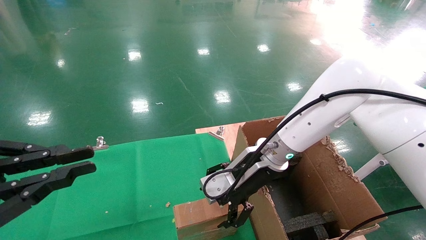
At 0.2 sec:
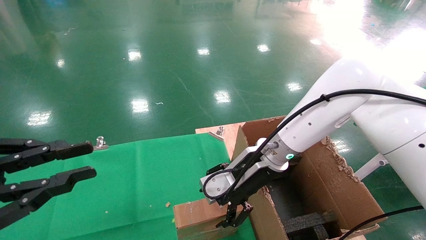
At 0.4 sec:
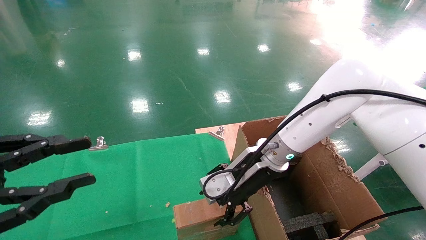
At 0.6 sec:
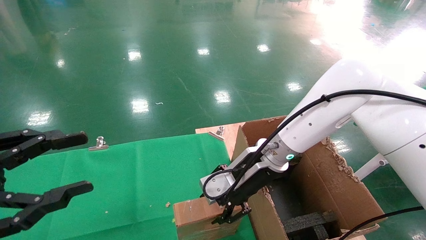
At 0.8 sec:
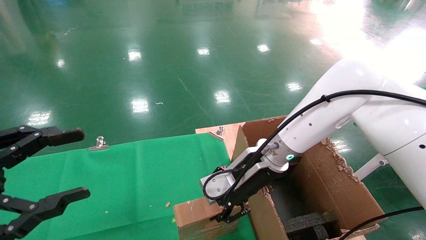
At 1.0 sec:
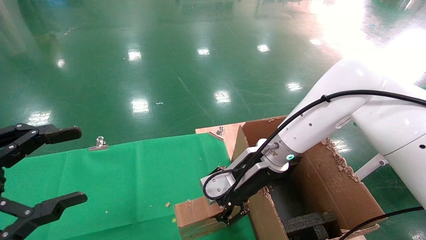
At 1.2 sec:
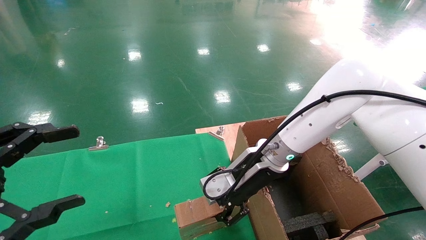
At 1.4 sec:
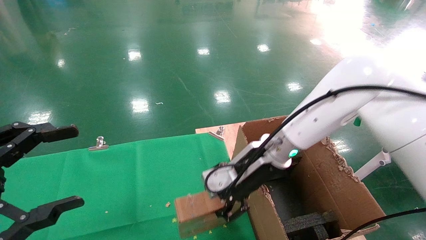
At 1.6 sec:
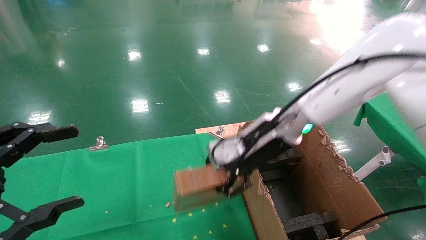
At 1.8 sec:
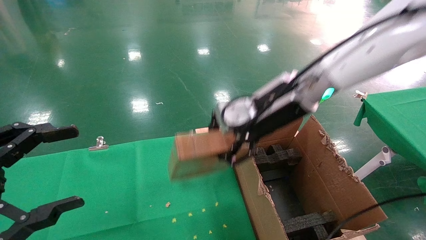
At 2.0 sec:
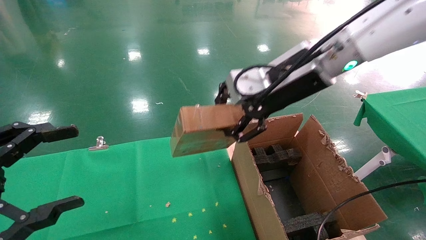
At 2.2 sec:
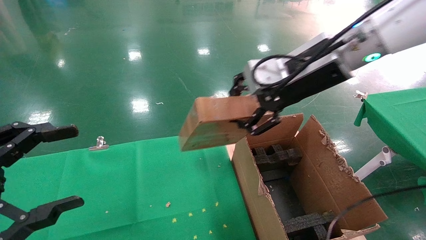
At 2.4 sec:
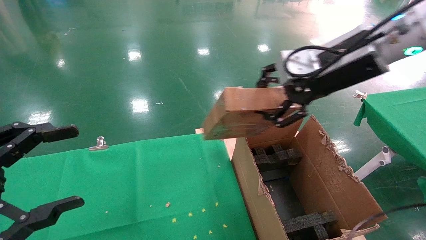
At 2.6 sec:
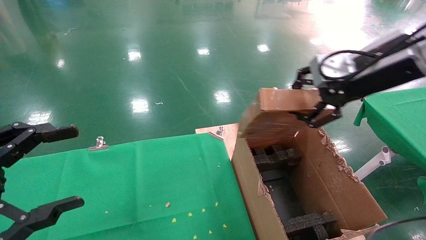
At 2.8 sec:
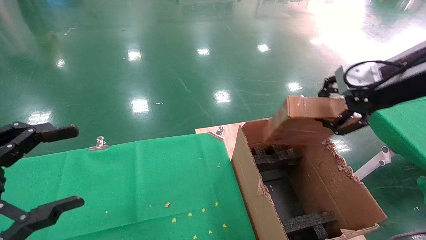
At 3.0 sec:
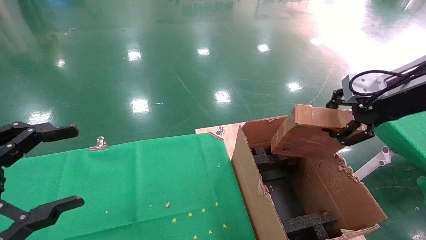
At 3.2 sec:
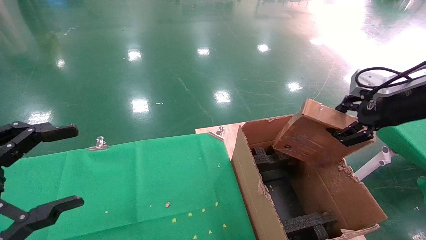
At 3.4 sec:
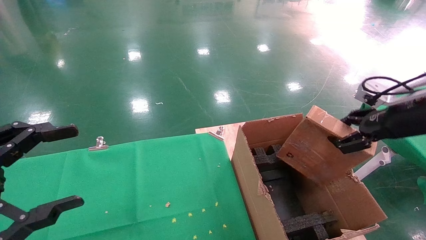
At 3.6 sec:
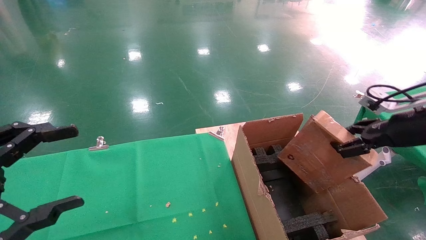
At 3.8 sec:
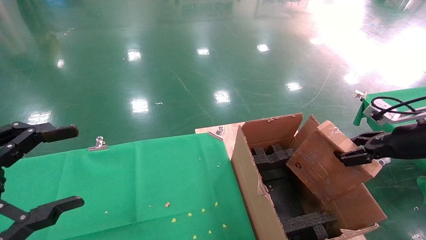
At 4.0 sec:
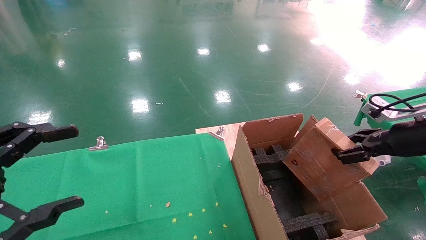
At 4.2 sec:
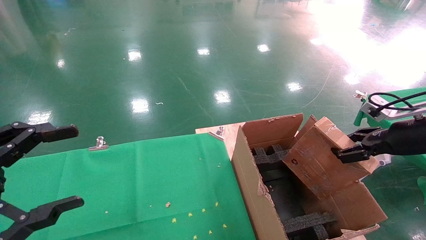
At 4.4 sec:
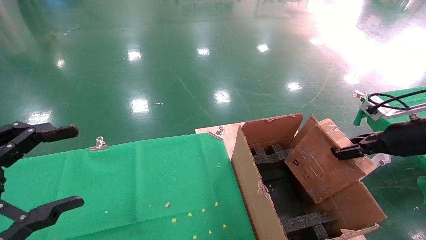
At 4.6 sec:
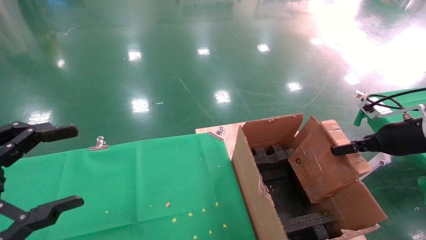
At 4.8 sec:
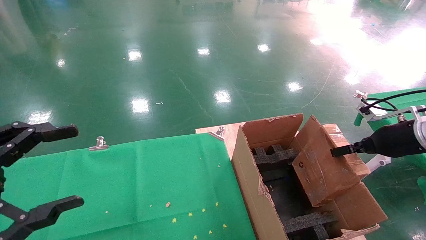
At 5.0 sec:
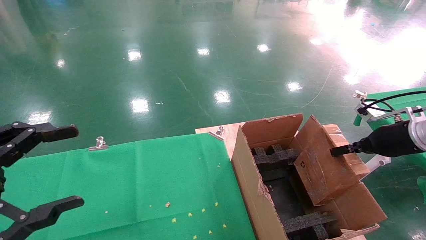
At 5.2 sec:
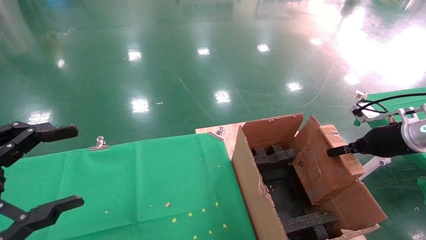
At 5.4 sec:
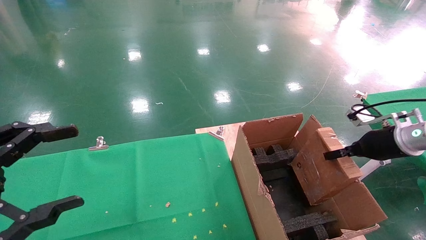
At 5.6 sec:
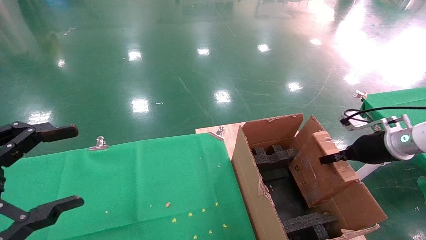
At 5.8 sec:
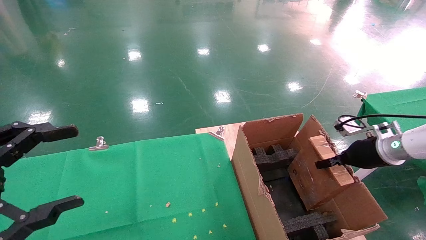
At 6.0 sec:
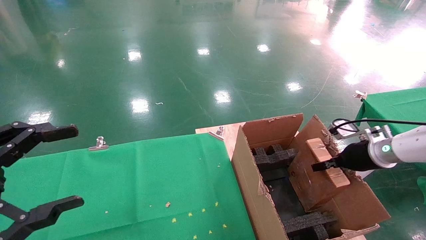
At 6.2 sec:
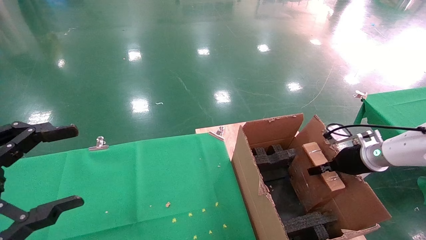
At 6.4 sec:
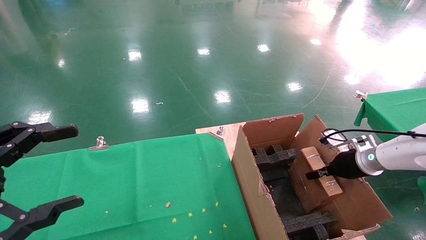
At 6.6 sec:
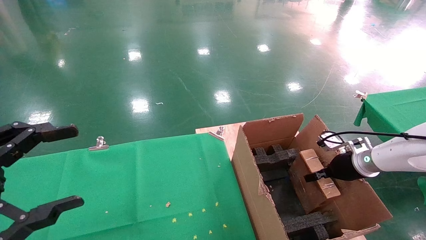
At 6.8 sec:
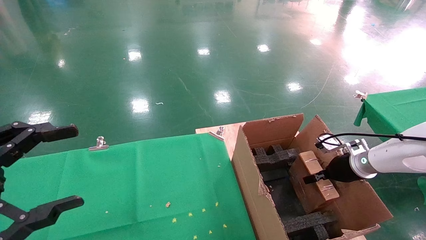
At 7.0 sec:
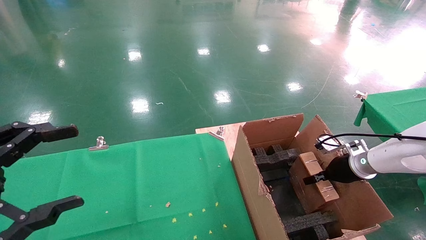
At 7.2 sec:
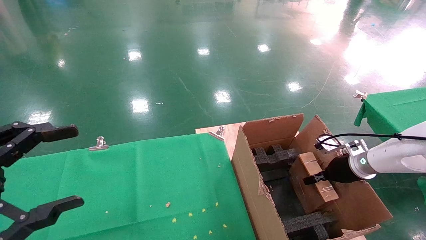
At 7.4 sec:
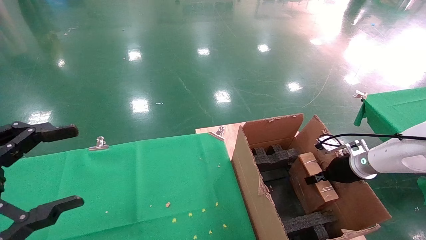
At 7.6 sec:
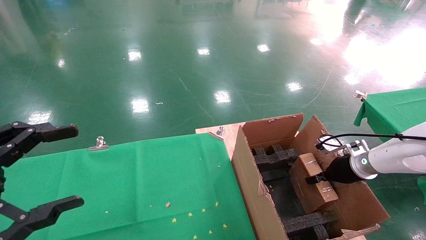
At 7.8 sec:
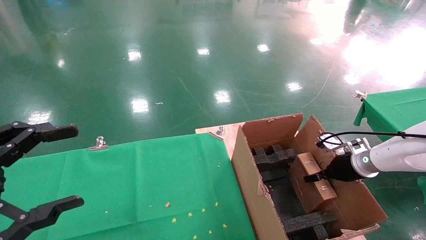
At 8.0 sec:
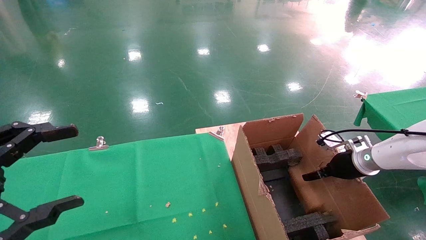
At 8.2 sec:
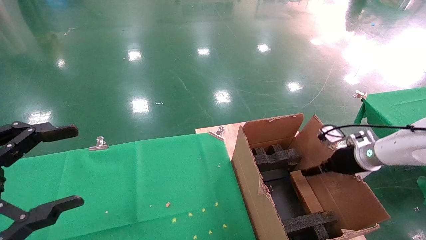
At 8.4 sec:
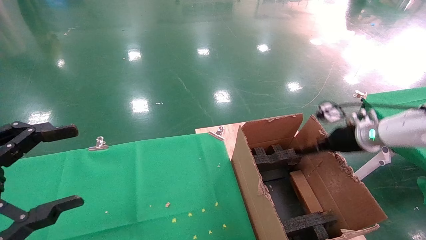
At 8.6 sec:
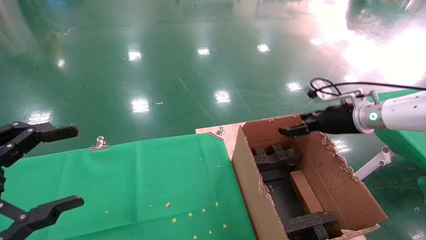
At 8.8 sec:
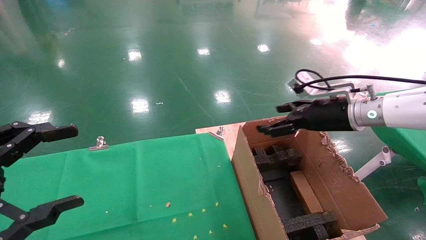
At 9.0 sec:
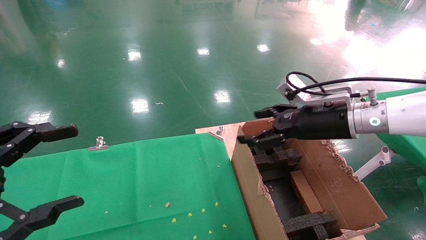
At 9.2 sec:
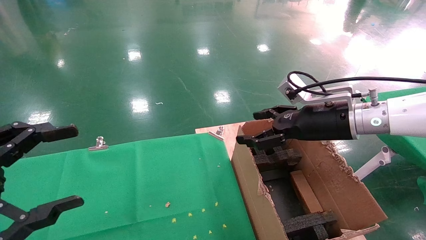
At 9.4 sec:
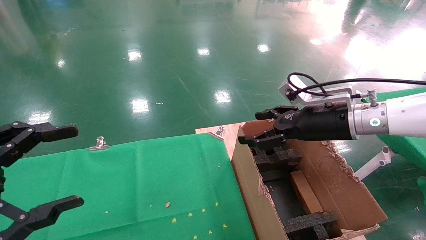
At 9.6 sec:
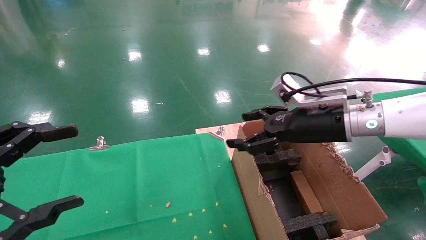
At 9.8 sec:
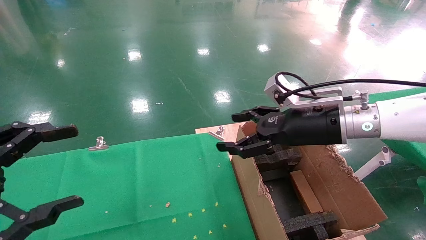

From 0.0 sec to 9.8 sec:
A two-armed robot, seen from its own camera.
Task of the whole recording: using a robotic arm to pick up a cardboard box and palace it the carton.
Step, from 1.0 sec to 8.4 sec: Place the mouse and the power cord paper box into the container.
From 0.0 sec to 1.4 sec: The right gripper closes its fingers. Meanwhile the left gripper opens its fingers.
From 1.4 sec to 2.8 sec: The right gripper moves to the right and upward, approximately 25 cm.
From 2.8 sec to 4.2 sec: The right gripper shifts some 15 cm downward and to the right.
From 4.2 sec to 5.6 sec: The right gripper moves forward and downward, some 10 cm.
From 5.6 sec to 7.0 sec: The right gripper is displaced downward by approximately 10 cm.
From 7.0 sec to 8.4 sec: The right gripper is displaced upward by roughly 10 cm, and opens up.
From 8.4 sec to 9.8 sec: The right gripper moves to the left, upward and backward, some 20 cm.

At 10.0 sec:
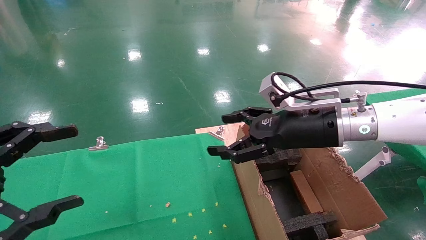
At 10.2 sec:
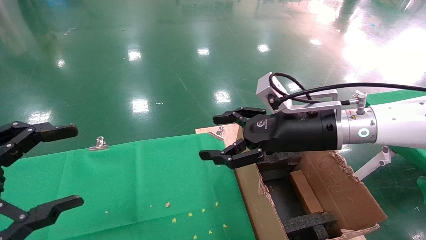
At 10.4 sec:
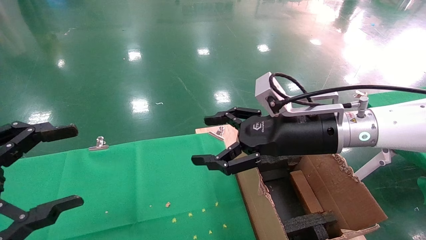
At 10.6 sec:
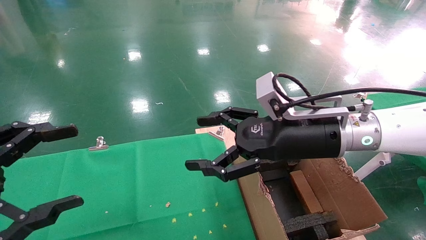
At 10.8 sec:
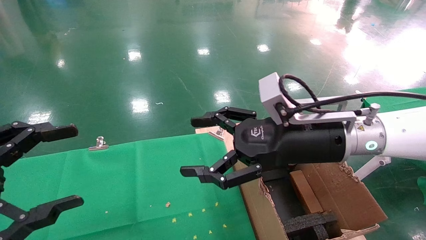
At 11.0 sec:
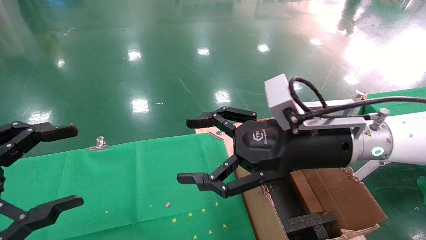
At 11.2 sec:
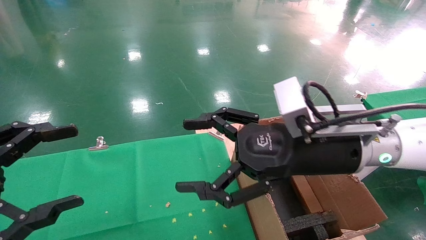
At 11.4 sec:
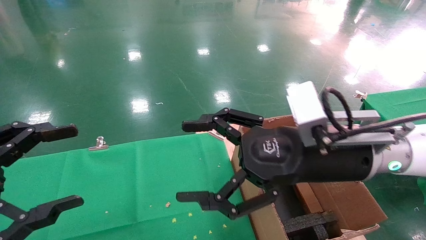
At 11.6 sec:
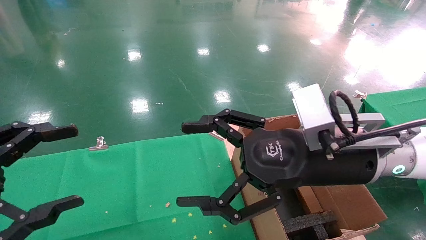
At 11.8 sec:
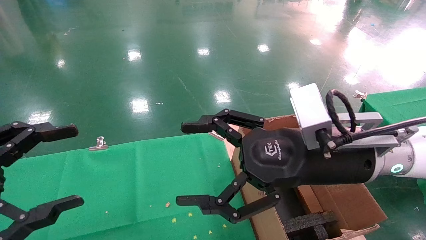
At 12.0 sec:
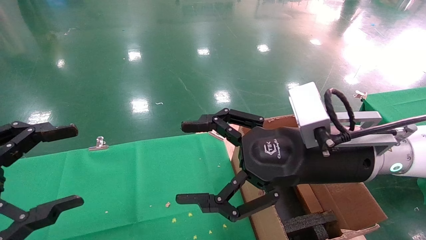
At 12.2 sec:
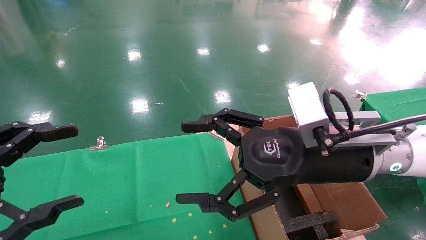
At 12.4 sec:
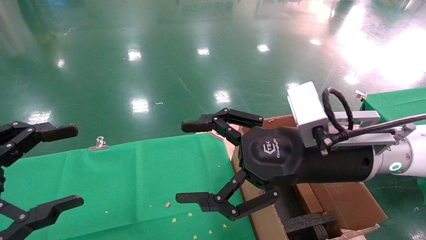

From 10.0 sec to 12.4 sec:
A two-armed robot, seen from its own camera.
Task of the whole recording: using a robotic arm to pick up a cardboard box and palace it the carton.
From 10.0 sec to 11.2 sec: The right gripper is displaced backward by roughly 5 cm.
From 11.2 sec to 12.4 sec: The grippers stay close to where they were, moving slightly.
